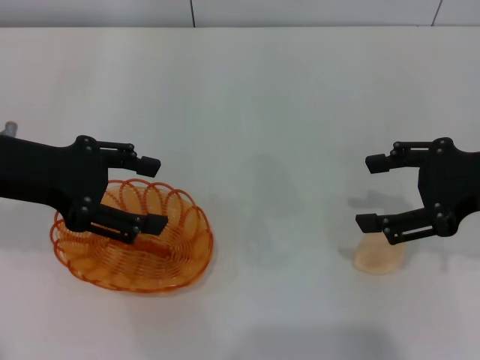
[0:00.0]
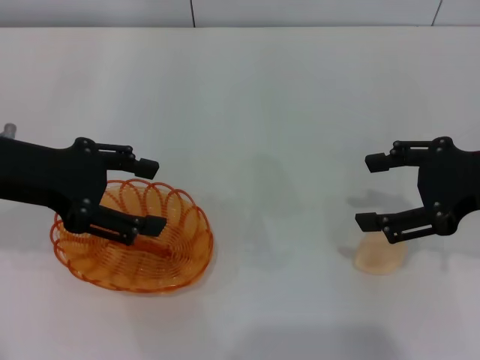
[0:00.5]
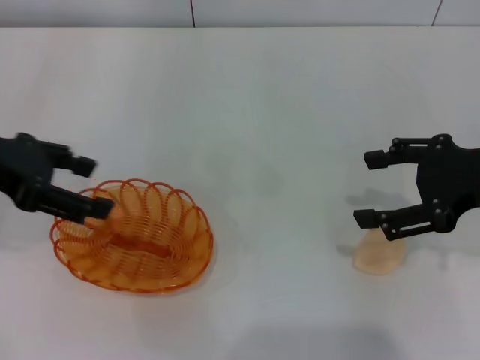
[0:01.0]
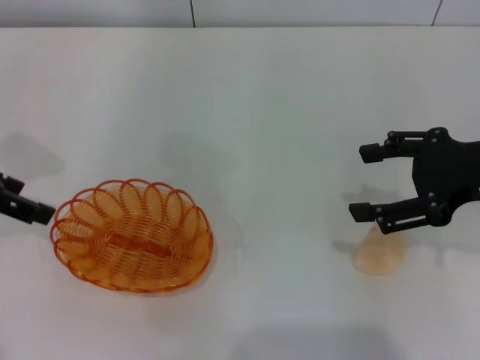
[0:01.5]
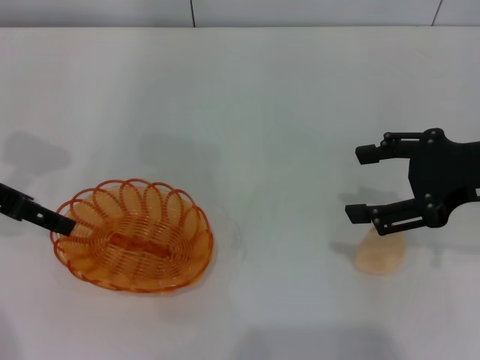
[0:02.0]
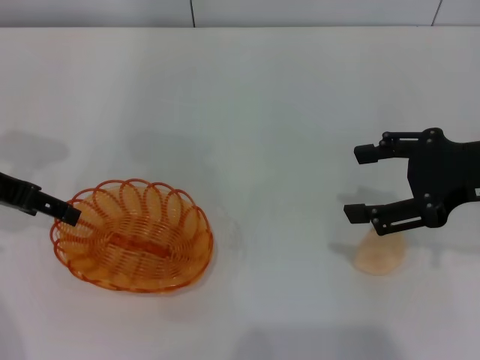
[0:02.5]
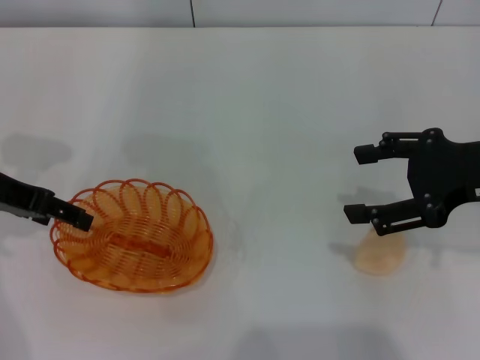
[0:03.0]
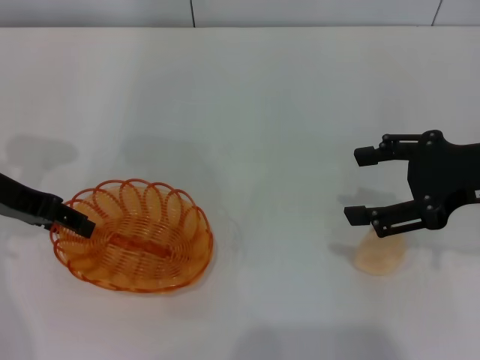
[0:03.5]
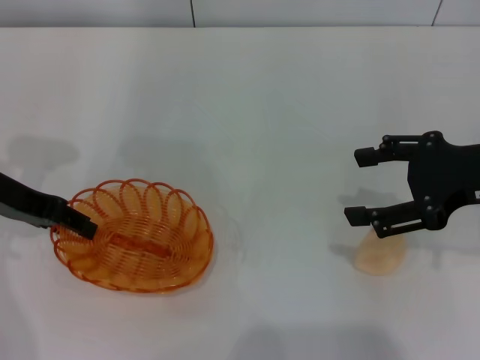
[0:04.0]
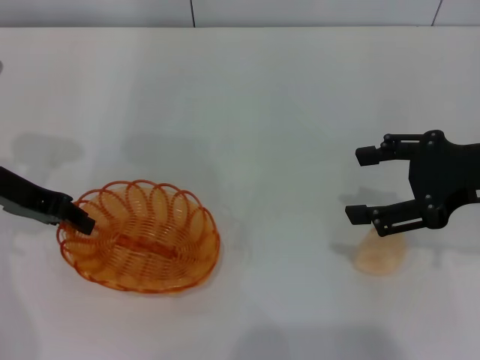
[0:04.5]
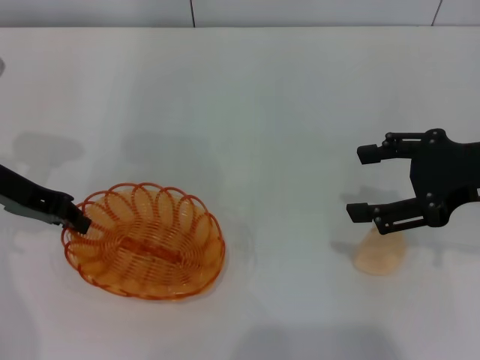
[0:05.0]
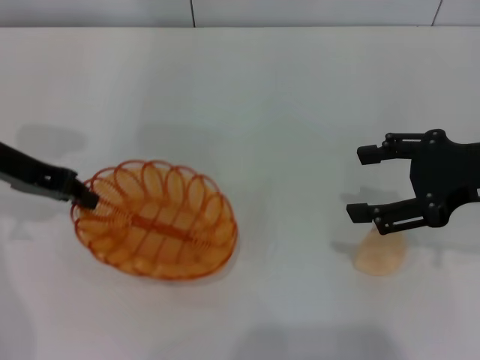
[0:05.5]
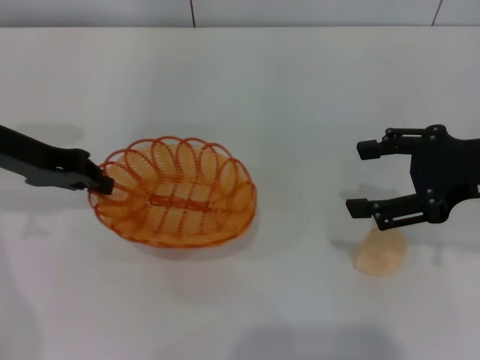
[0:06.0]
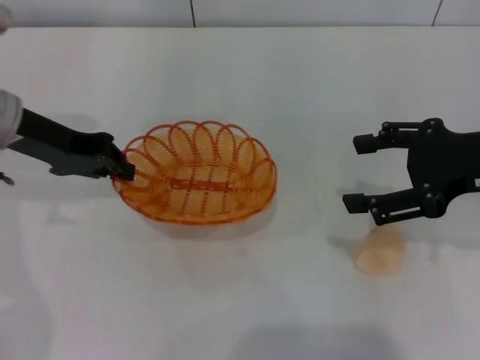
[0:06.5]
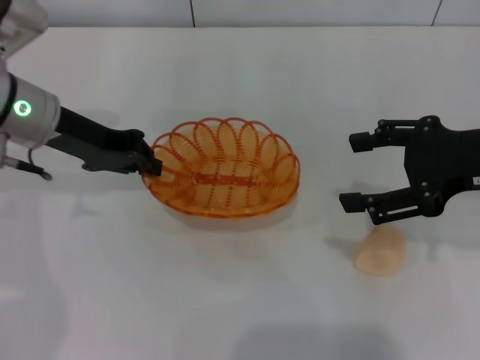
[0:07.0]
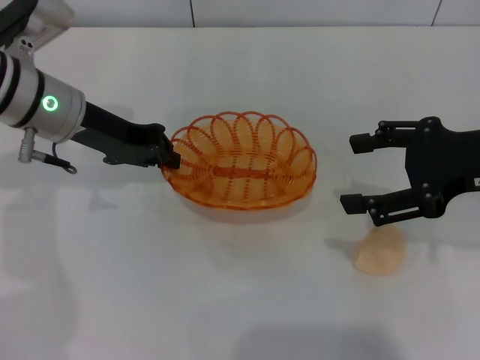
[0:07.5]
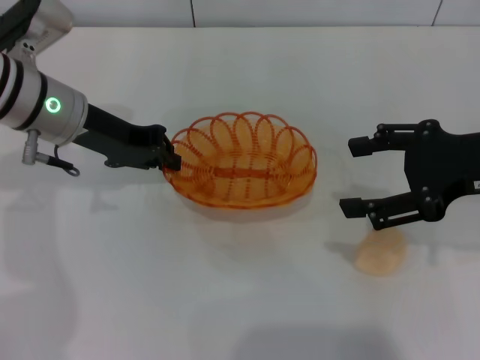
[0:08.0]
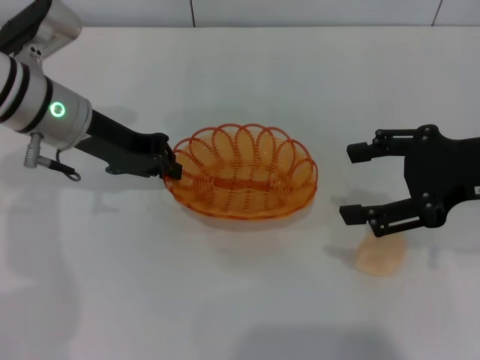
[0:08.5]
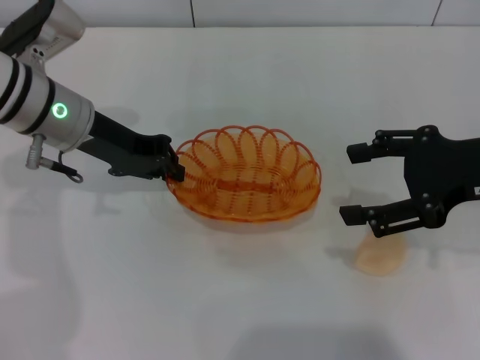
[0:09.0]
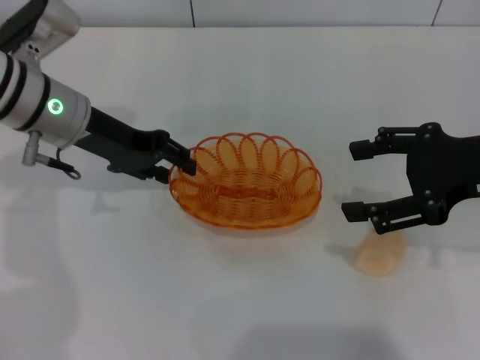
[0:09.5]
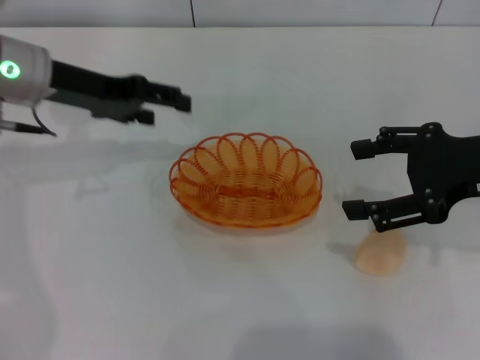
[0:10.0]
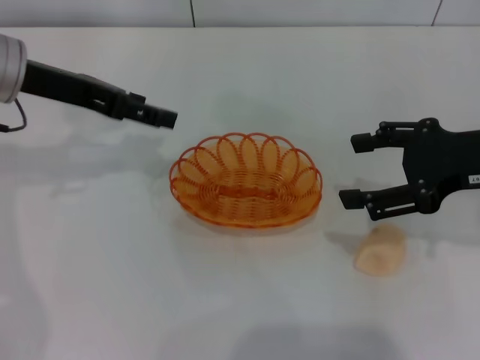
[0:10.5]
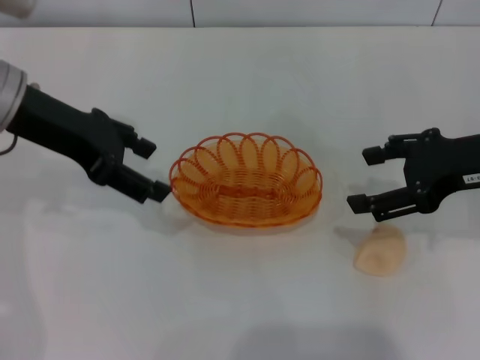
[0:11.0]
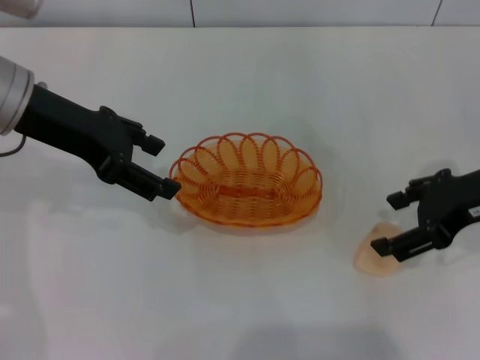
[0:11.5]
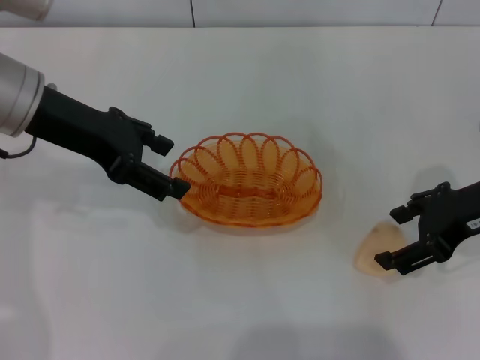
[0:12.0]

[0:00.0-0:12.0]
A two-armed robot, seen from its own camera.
Step, 0:00.0 to 0:06.0: Pick up the basket with the left gripper.
Step, 0:06.5 to 0:09.5: Place the basket in the center of view with the left gripper.
0:00.0 to 0:02.0: The left gripper moves roughly 5 cm.
0:02.0 to 0:04.0: The grippers make only small movements.
0:04.0 to 0:06.0: The left gripper closes.
0:06.0 to 0:08.0: The left gripper heads to the right, covering approximately 5 cm.
0:08.0 to 0:10.0: The left gripper opens its fingers.
0:10.0 to 0:12.0: The left gripper shifts by approximately 5 cm.

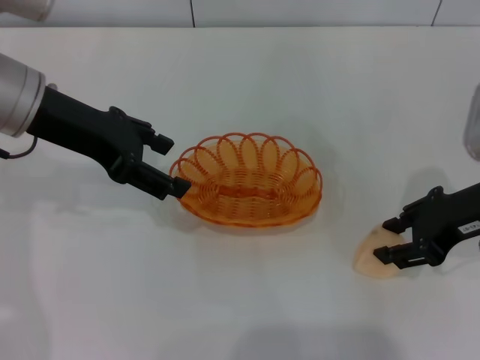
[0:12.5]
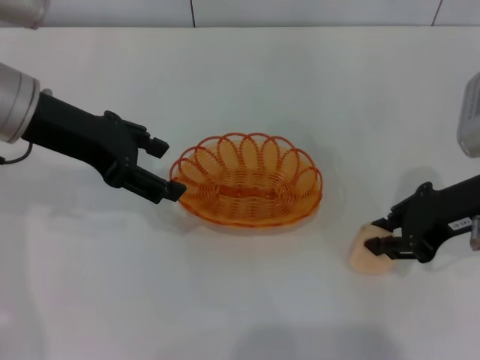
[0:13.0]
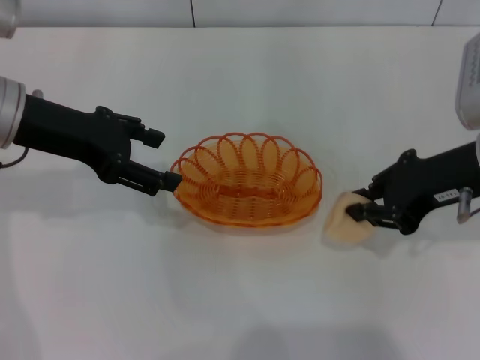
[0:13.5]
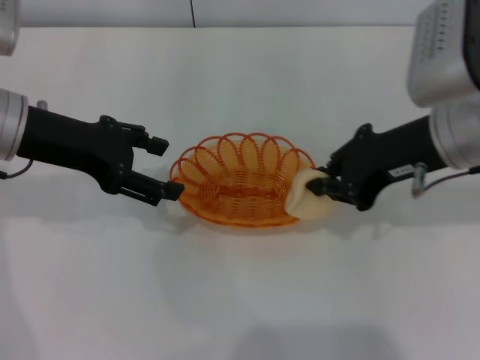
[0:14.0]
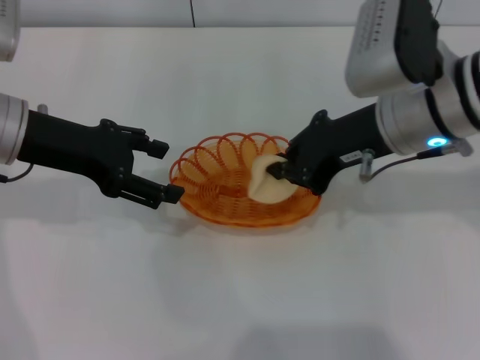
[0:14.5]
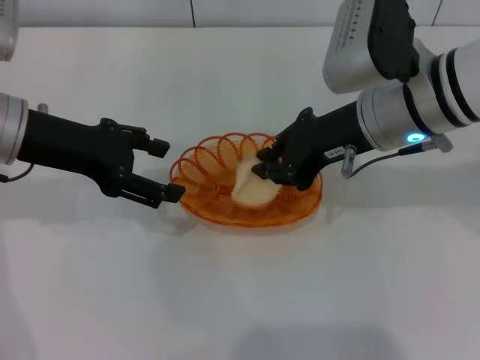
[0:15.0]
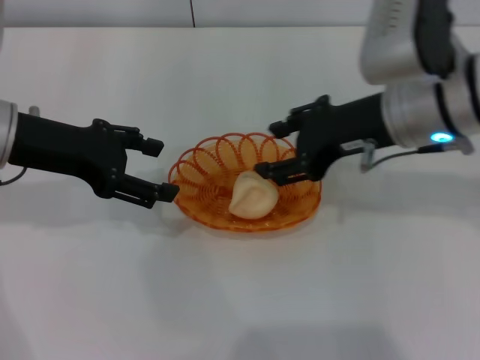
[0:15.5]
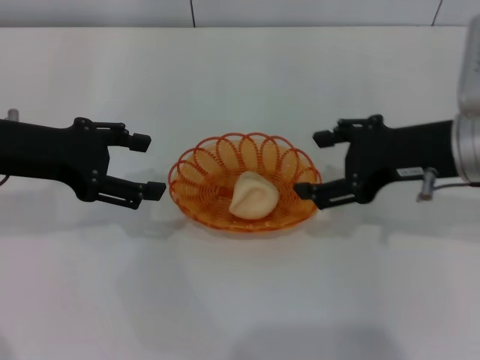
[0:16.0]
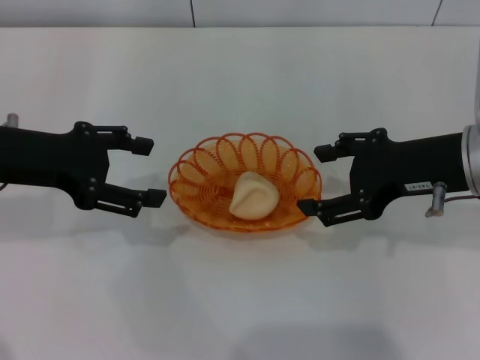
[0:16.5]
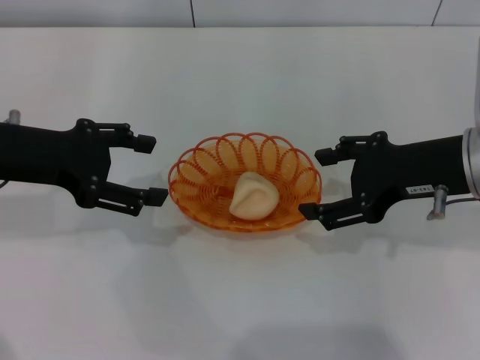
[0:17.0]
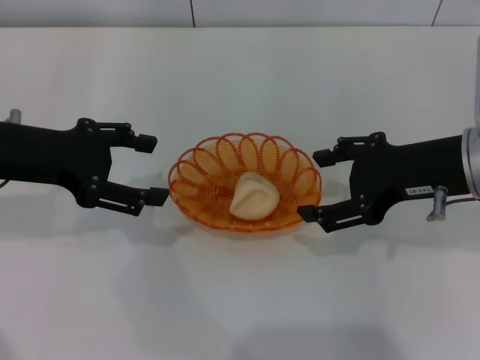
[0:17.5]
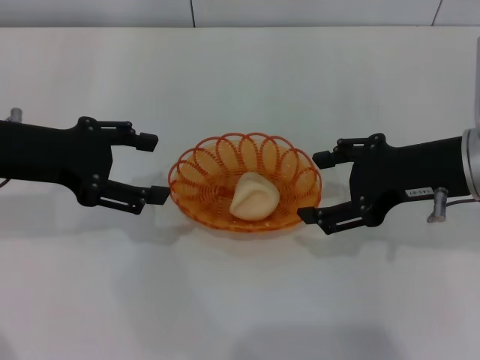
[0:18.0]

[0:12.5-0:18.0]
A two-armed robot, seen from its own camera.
Step, 0:14.0 to 0:16.5: Place the egg yolk pastry into the basket with the right gripper.
0:12.5 to 0:14.5: The right gripper heads to the left, covering about 10 cm, and closes its fingers.
0:14.5 to 0:16.0: The right gripper is displaced to the right by approximately 5 cm, and opens up.
0:16.0 to 0:18.0: There are only small adjustments of the grippers.

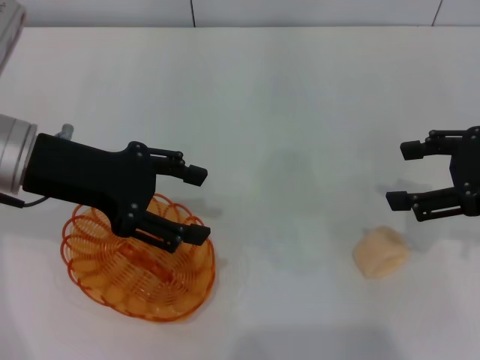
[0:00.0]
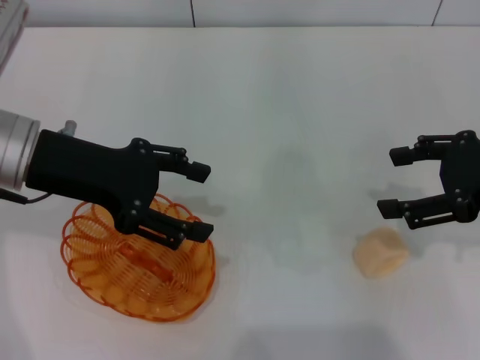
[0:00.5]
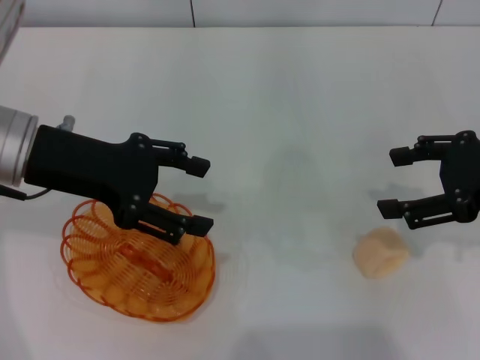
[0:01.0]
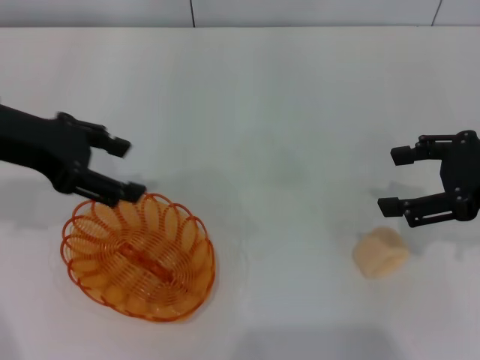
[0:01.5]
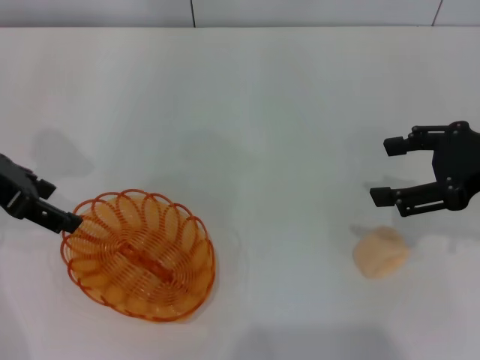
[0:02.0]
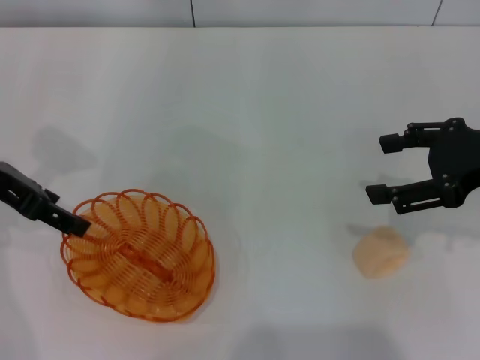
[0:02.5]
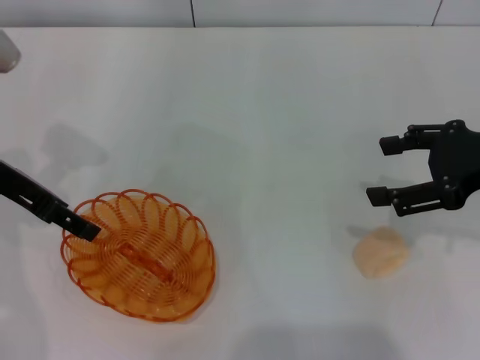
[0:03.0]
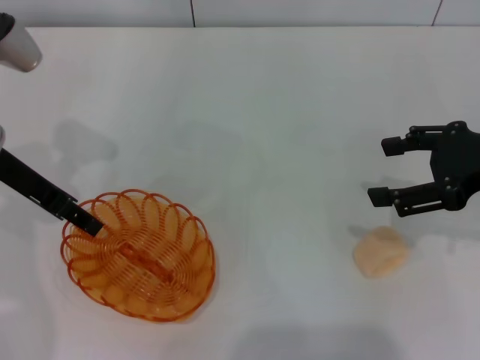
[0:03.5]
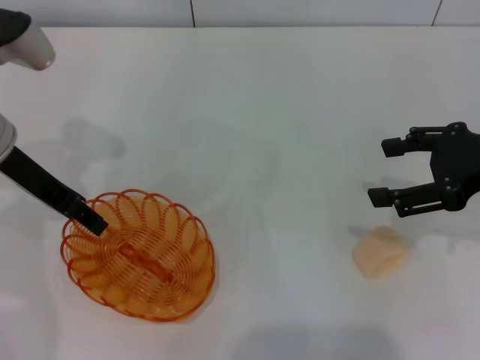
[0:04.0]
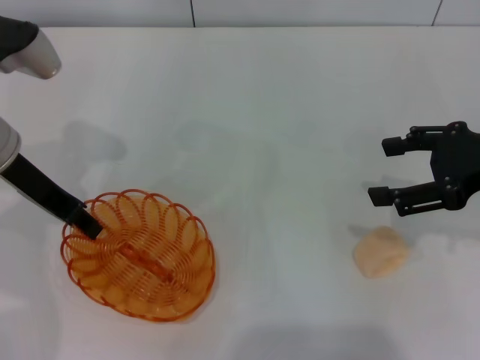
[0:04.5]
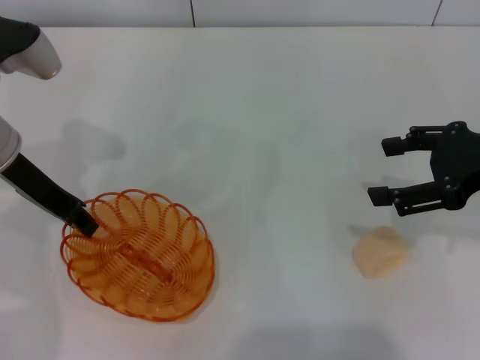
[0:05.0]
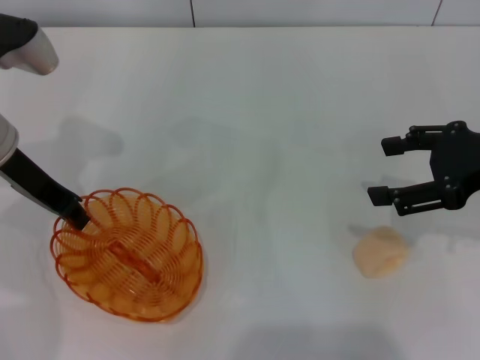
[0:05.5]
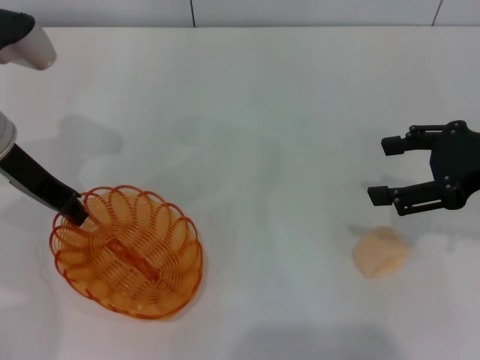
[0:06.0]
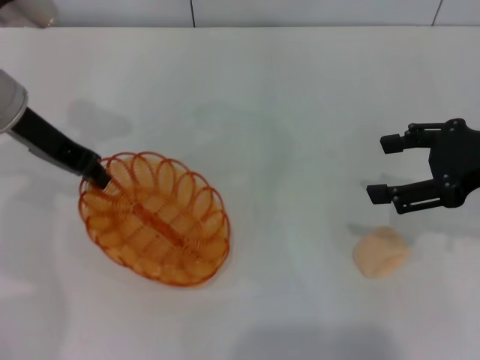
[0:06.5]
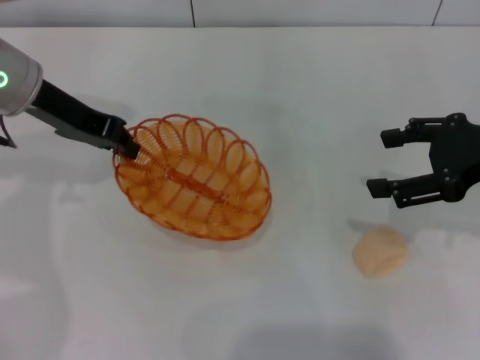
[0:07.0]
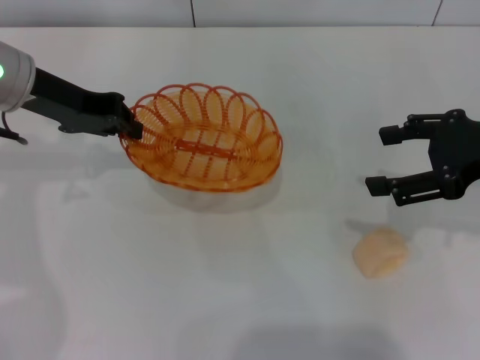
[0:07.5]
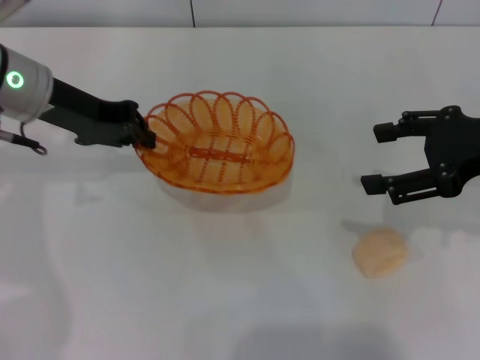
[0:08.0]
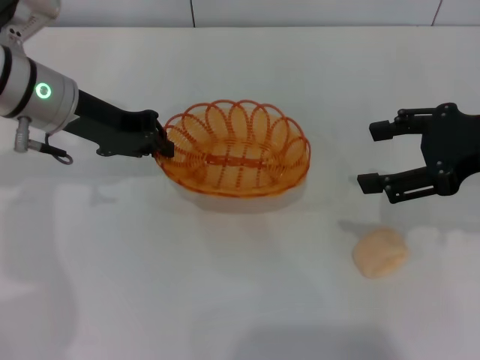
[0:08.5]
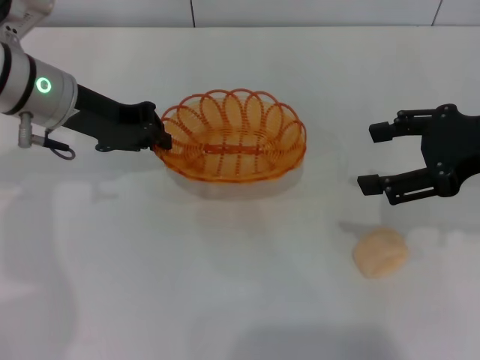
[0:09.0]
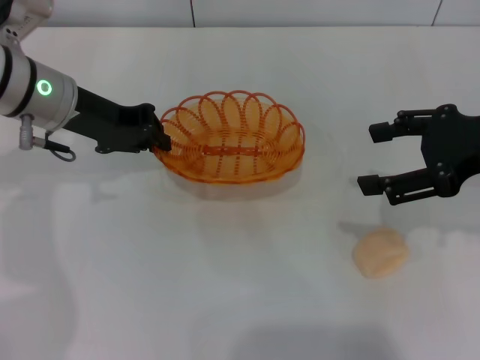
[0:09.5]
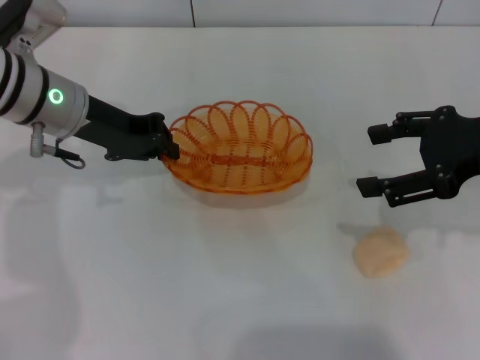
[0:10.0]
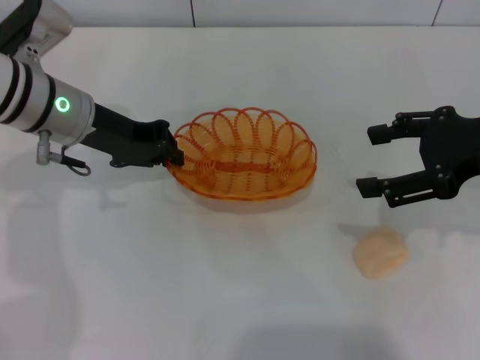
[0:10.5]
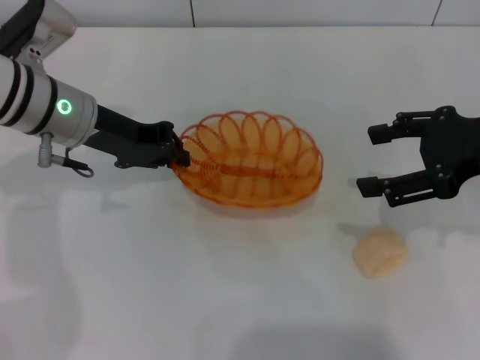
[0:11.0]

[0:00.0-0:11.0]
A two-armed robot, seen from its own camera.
Step, 0:00.0 to 0:06.5: Pick up the basket with the left gripper.
0:00.0 to 0:02.0: The left gripper shifts approximately 5 cm to the left.
0:02.0 to 0:03.5: The grippers move only a little.
0:03.5 to 0:05.5: The left gripper closes.
0:07.5 to 0:09.0: The grippers make only small movements.
0:09.0 to 0:11.0: The grippers move only a little.
